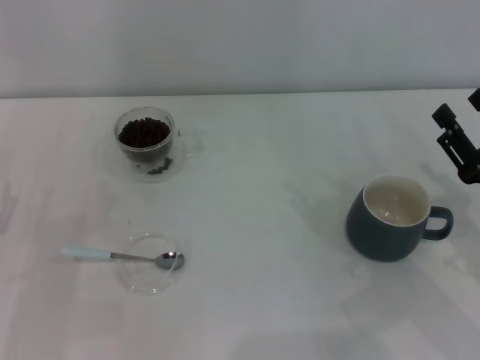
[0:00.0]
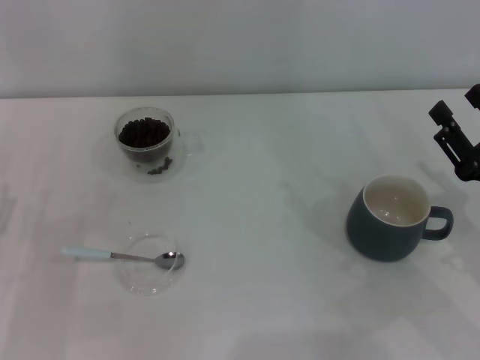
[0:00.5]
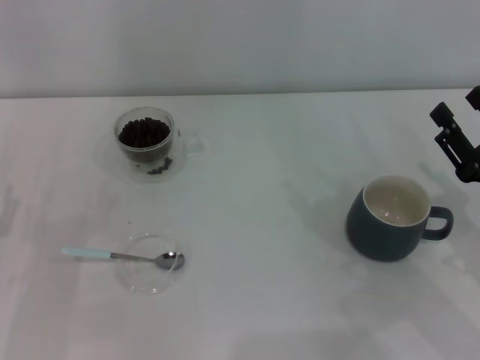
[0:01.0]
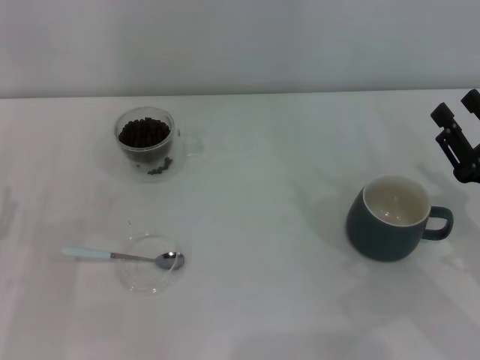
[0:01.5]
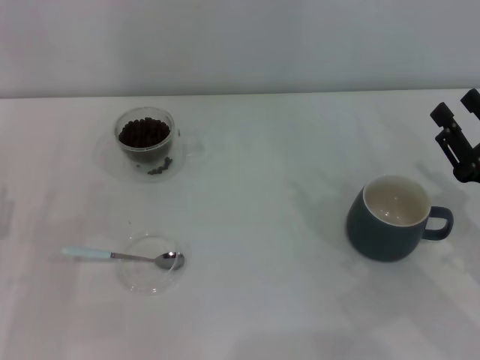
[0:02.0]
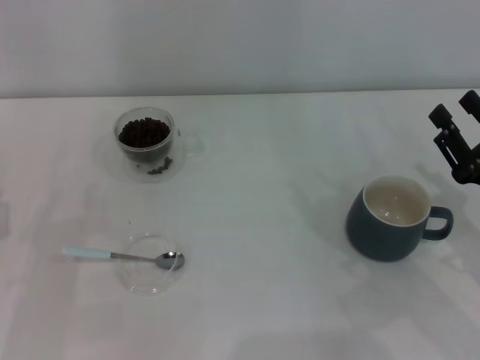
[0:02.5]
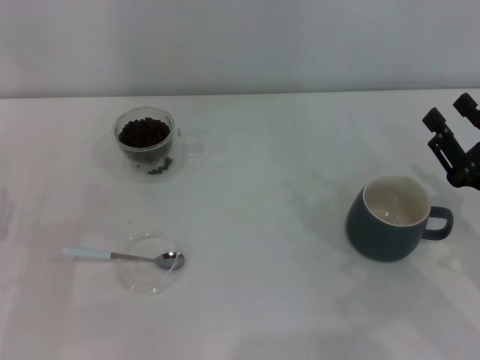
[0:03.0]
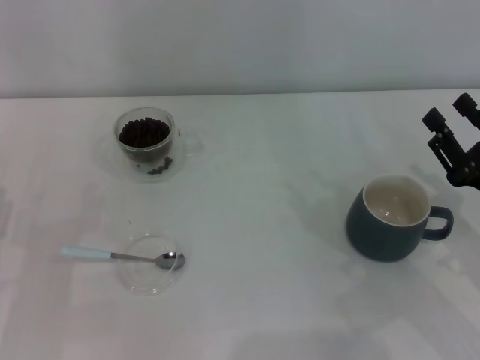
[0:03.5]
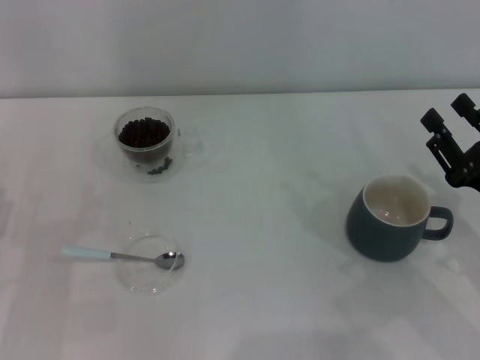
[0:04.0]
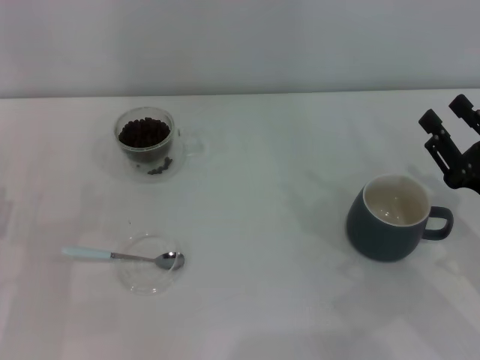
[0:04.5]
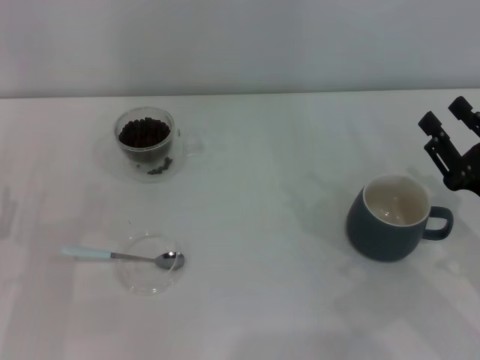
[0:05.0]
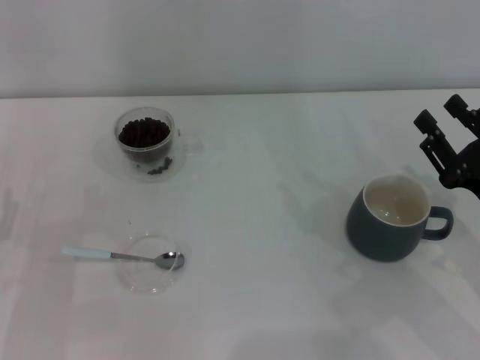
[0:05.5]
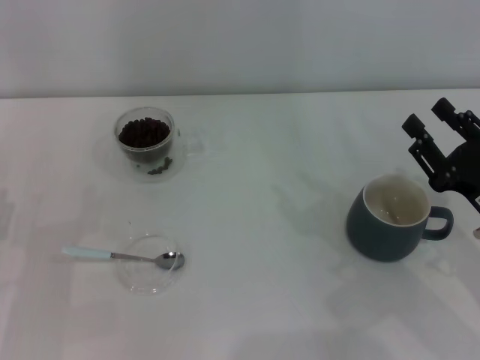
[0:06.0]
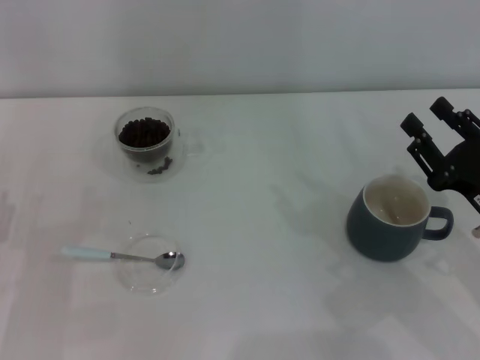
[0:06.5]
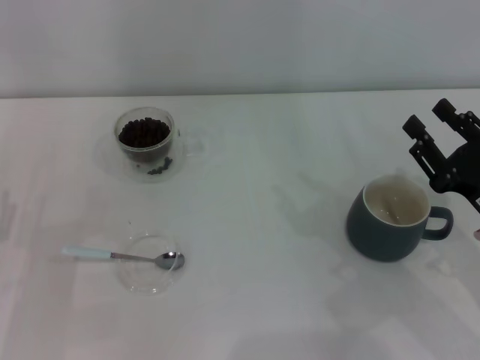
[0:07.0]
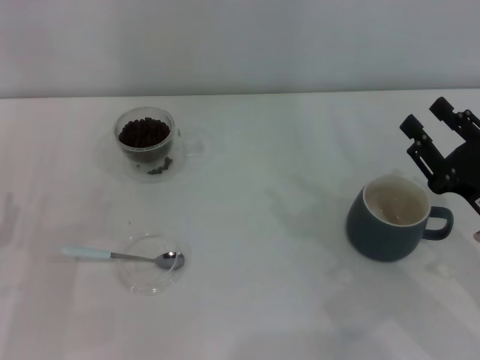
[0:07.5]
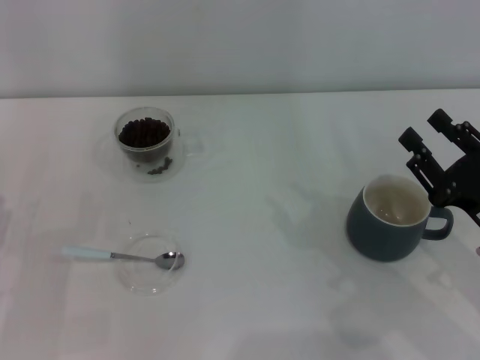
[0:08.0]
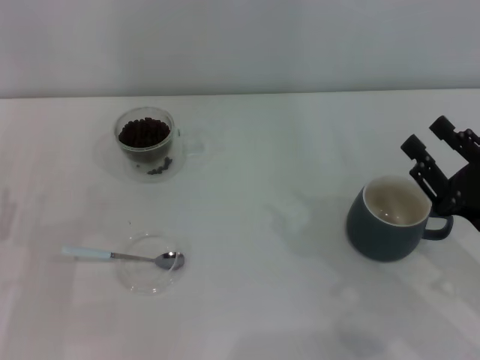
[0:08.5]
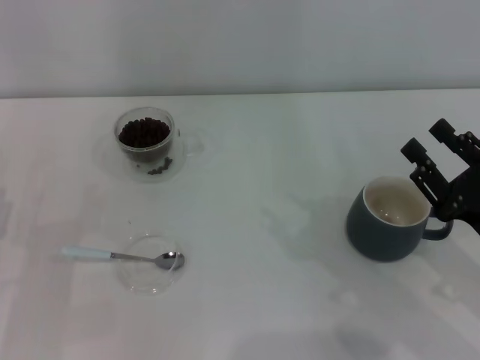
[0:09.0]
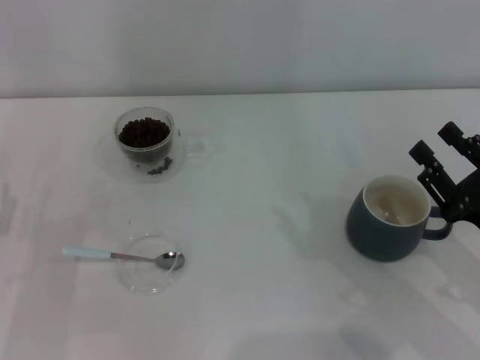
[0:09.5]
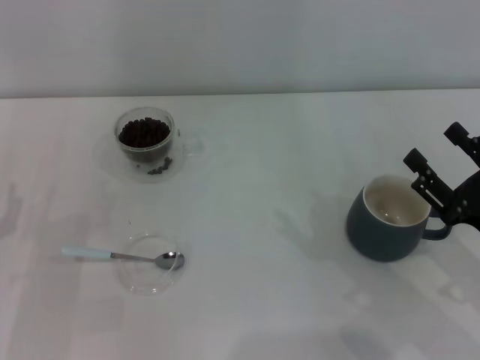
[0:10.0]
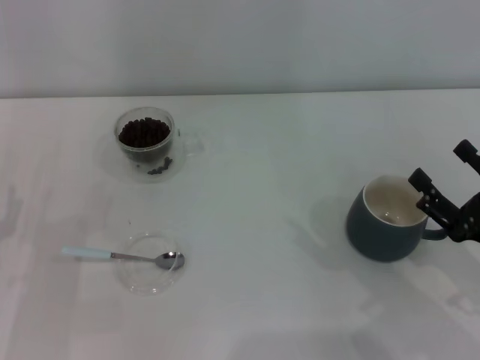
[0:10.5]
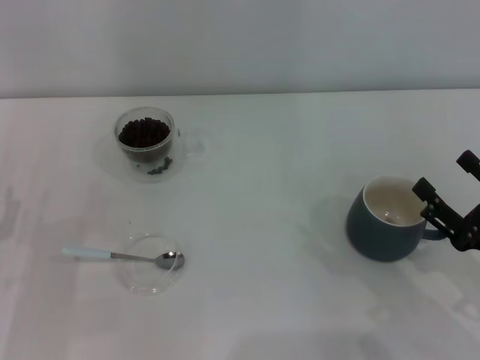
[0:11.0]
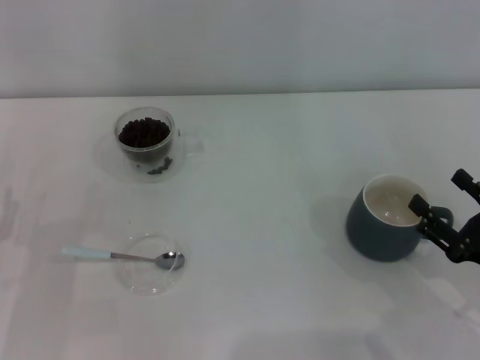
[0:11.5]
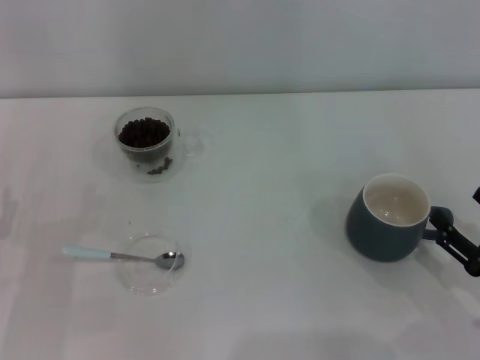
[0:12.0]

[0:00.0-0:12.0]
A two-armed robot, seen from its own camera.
Task of the whole recording: Use a blue spoon to take out the coffee beans from the glass and pour them into the gray cup.
0:00.0 to 0:02.0: Both grippers stay about where they are.
0:04.0 to 0:06.0: Both grippers stay about where they are.
0:06.0 to 0:08.0: Both grippers stay put.
0:08.0 to 0:10.0: There are only small adjustments of the grippers.
0:10.0 to 0:12.0: The right gripper ends up roughly 5 cm from where it was.

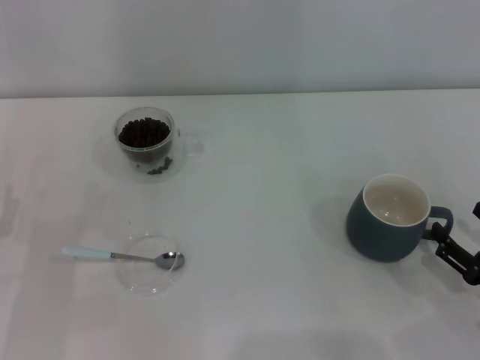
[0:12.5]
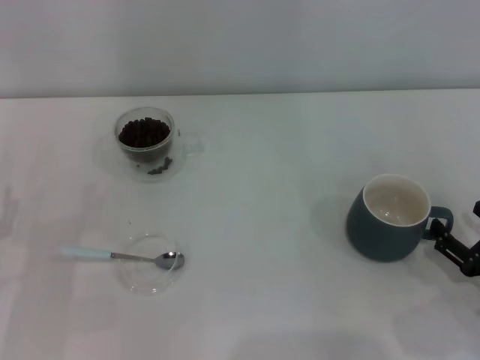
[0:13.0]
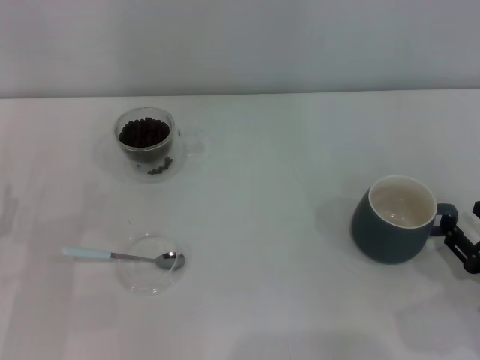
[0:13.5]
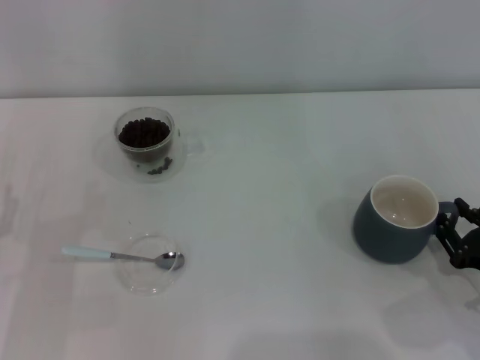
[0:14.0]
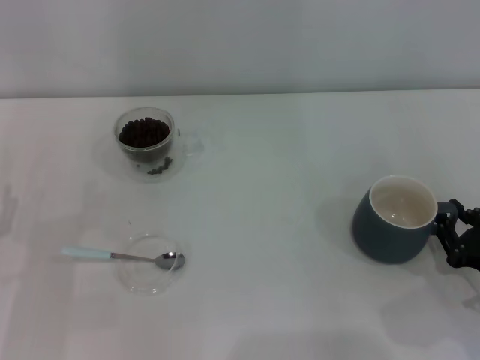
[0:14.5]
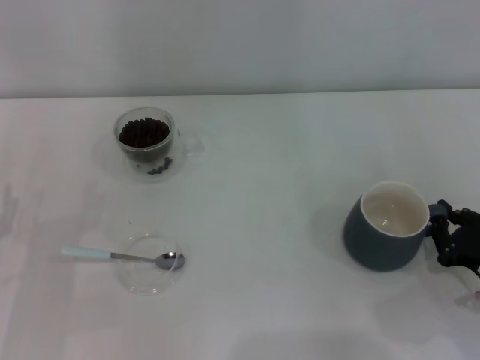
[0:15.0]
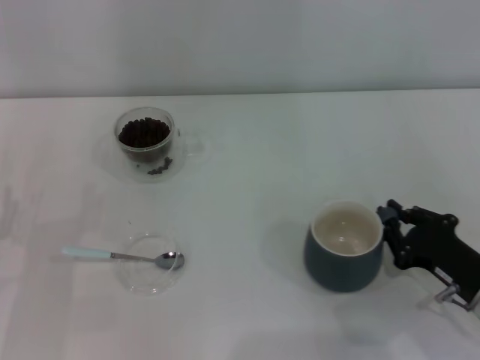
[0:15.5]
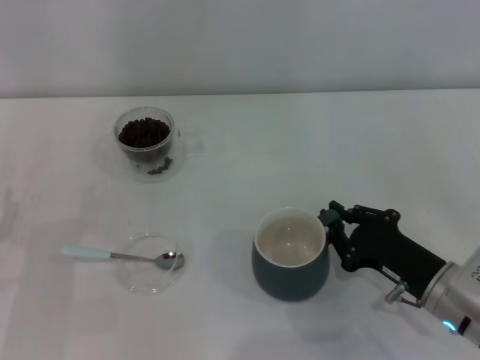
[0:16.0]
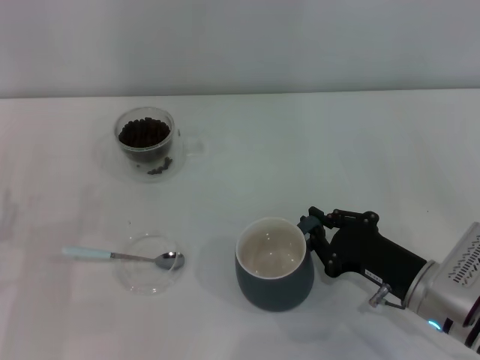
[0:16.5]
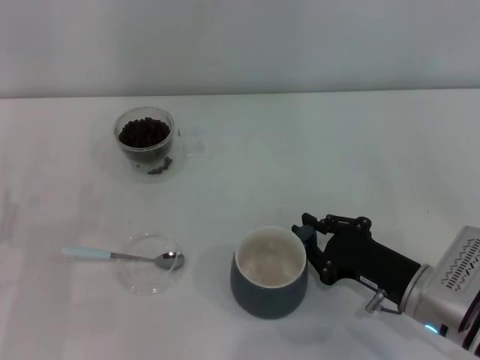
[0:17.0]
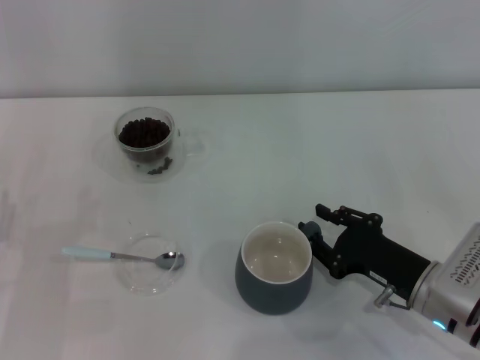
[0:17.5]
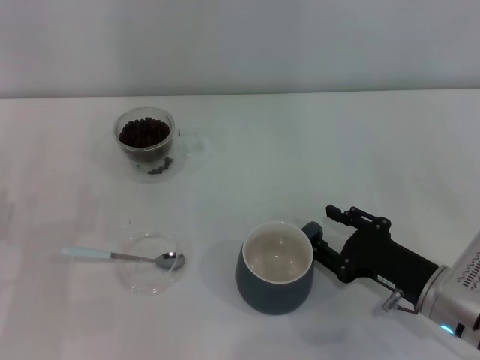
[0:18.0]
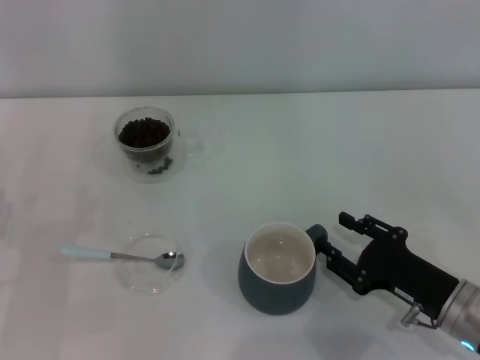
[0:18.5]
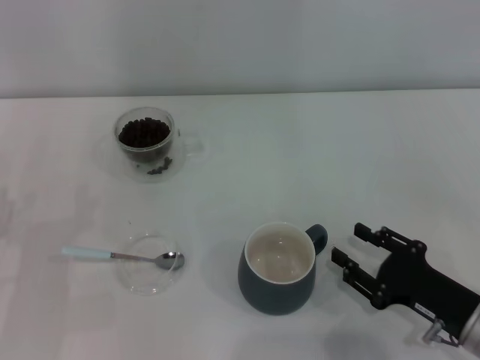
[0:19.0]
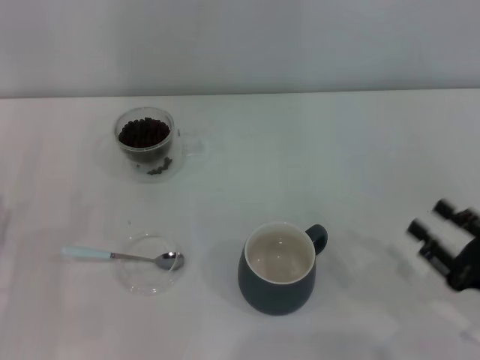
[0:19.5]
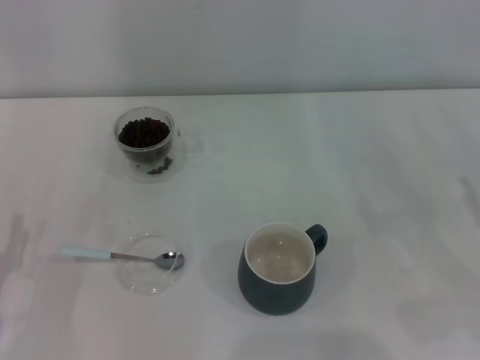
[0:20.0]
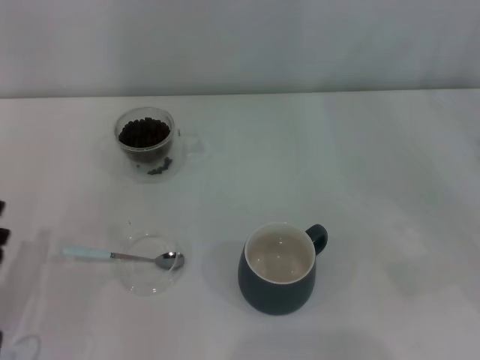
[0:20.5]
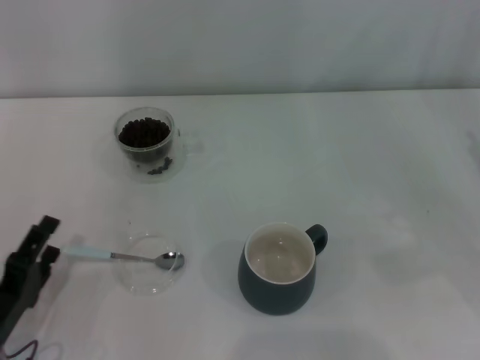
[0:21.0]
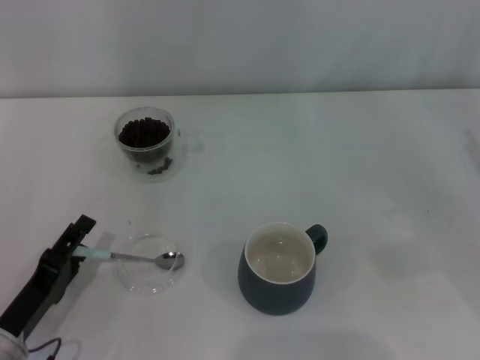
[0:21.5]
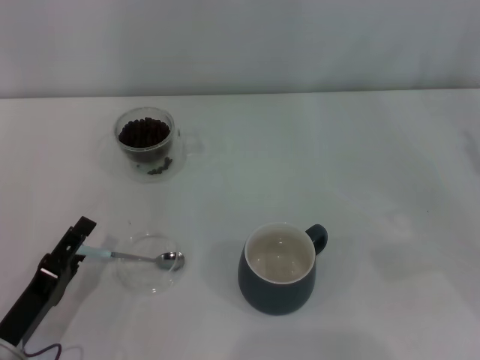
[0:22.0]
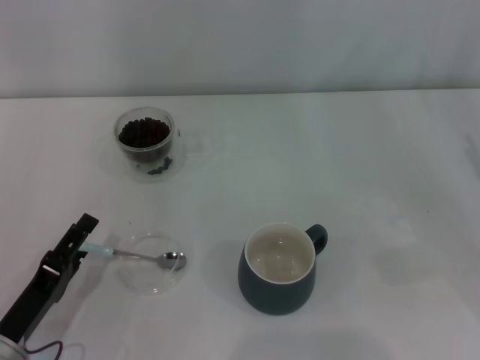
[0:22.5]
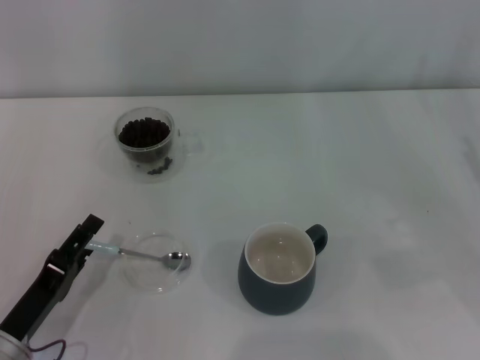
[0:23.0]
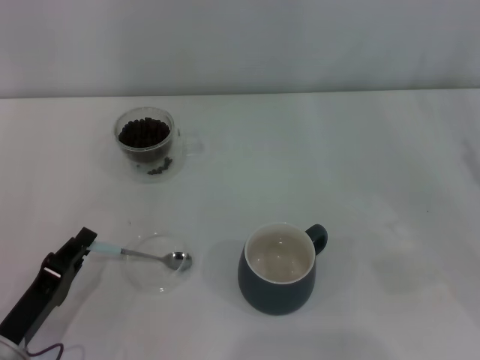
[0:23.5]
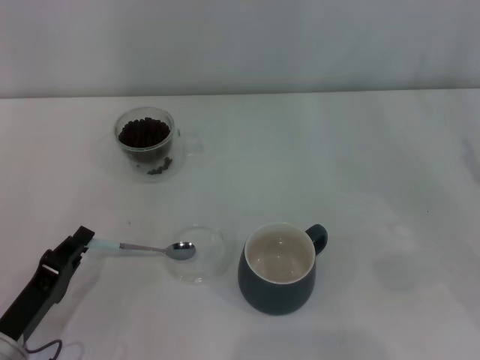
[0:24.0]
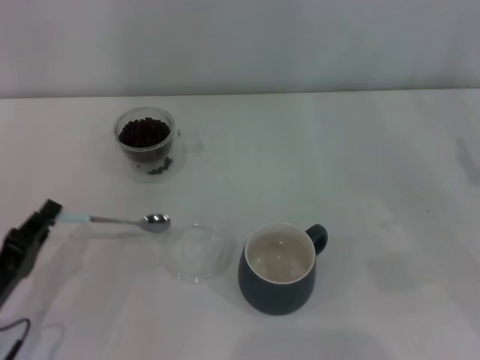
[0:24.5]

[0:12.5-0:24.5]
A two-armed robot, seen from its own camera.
Task of the whole recording: Use a blue spoon to take out the coffee beans from the glass and pour them into the gray cup.
0:12.5 to 0:14.5: The right gripper closes.
0:14.5 to 0:16.5: The right gripper travels to the left by roughly 10 cm.
0:16.5 to 0:18.5: The right gripper opens its fingers.
0:18.5 to 0:20.5: The left gripper goes roughly 5 cm backward. The right gripper heads to the right and upward, covering about 15 cm.
0:20.5 to 0:22.5: The grippers stay close to where they were, moving slightly.
0:22.5 to 0:24.5: The left gripper closes its fingers.

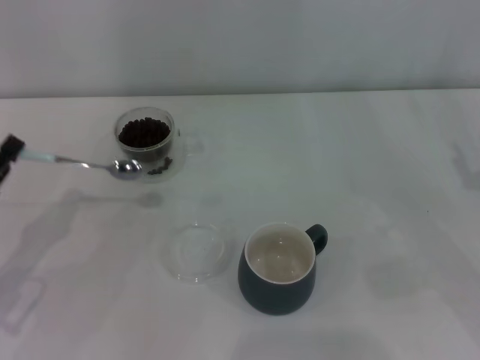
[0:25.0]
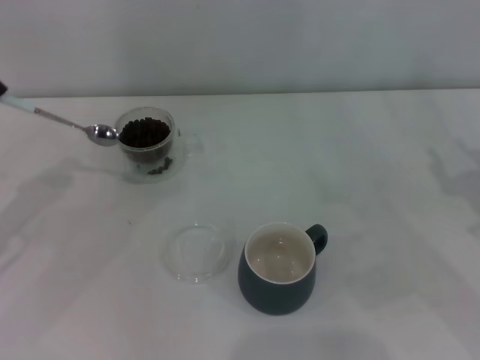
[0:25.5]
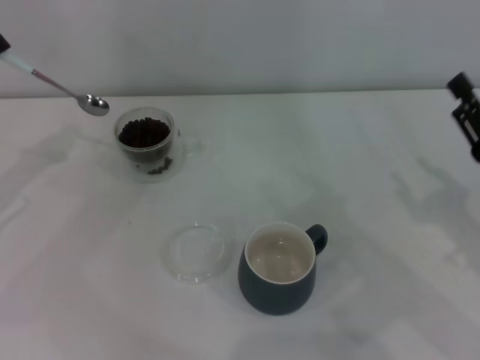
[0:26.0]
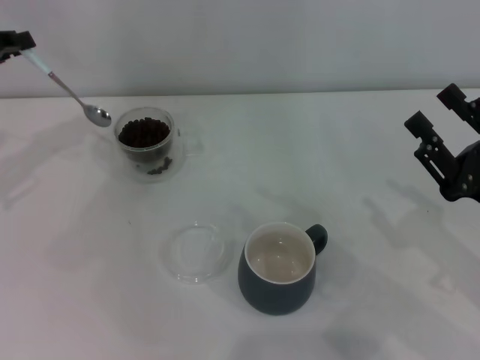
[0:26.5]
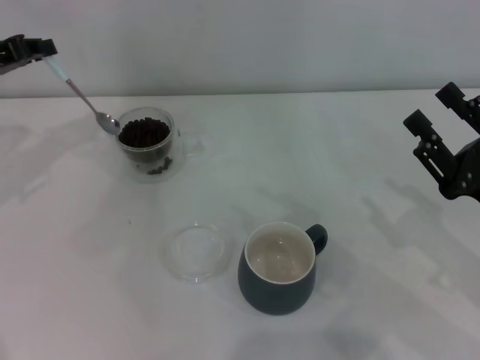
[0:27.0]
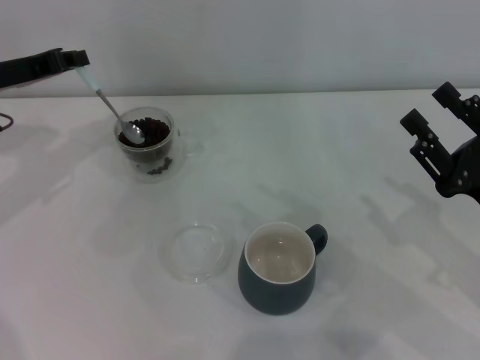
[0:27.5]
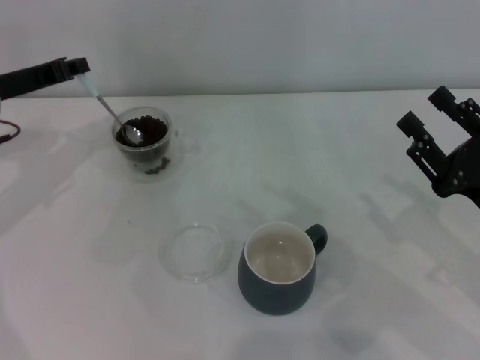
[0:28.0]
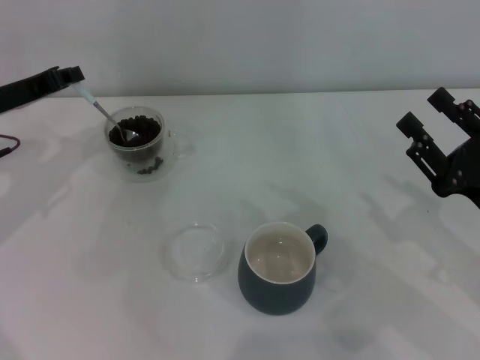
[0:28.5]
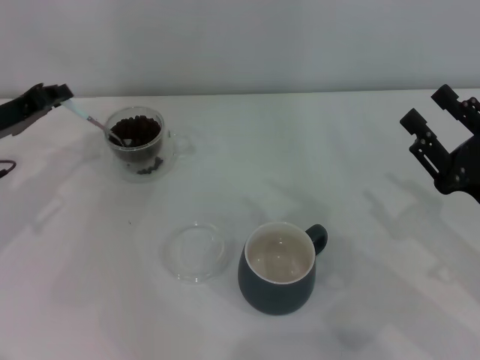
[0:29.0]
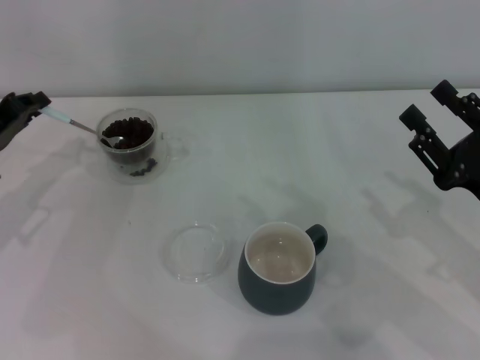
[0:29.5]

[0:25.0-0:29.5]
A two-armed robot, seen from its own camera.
Task of the whole recording: Use a blue spoon to take out the coffee beans from the glass and pour them into the gray cup.
0:25.0 to 0:27.0: The right gripper shifts approximately 5 cm to the left, while the left gripper heads forward and upward, covering about 20 cm.
0:27.0 to 0:29.5: The left gripper is displaced downward and backward by about 10 cm.
